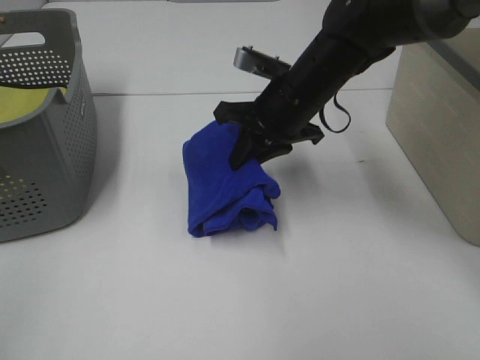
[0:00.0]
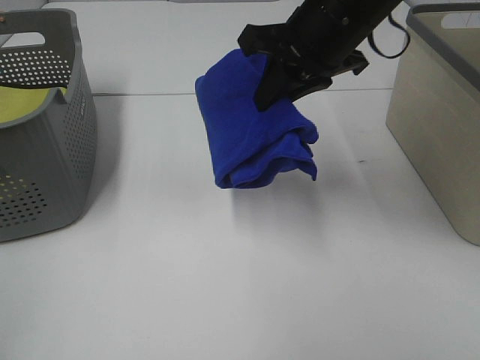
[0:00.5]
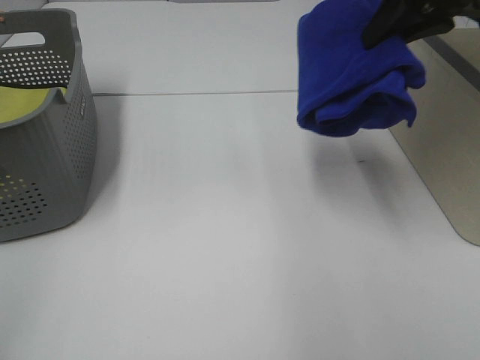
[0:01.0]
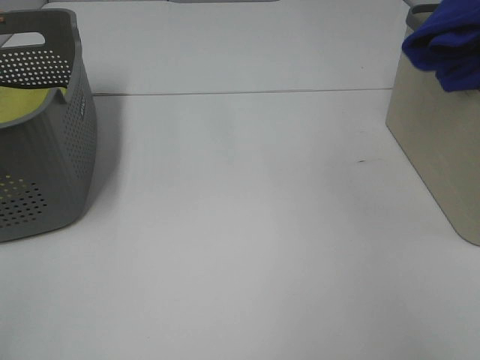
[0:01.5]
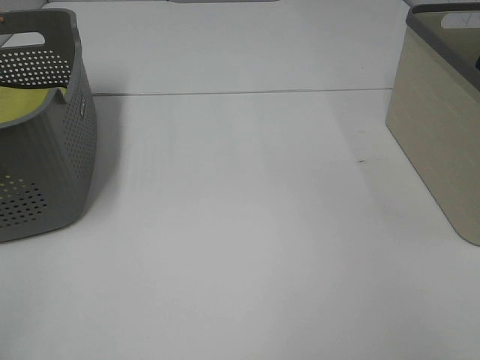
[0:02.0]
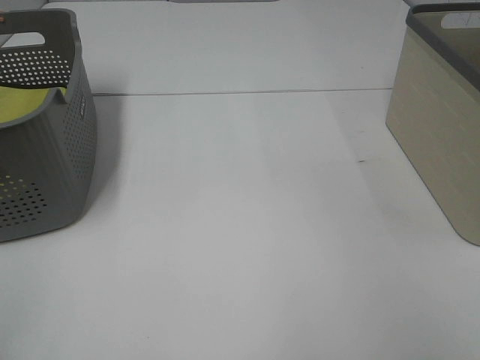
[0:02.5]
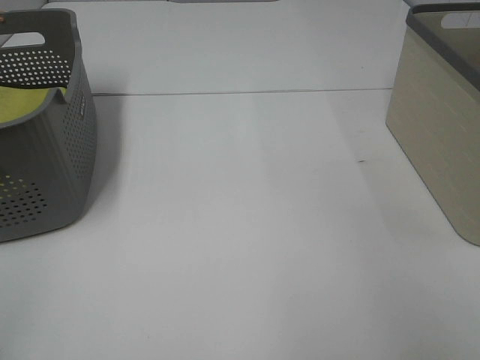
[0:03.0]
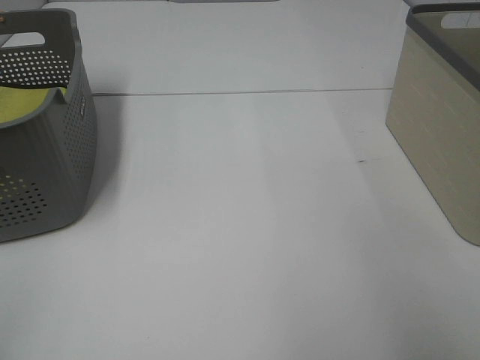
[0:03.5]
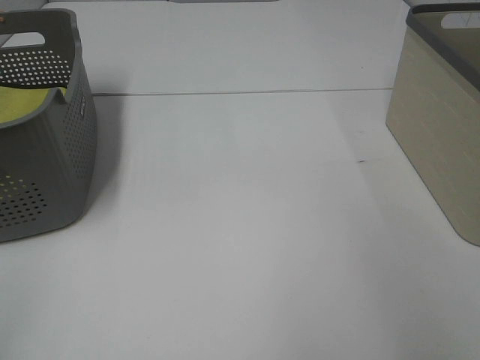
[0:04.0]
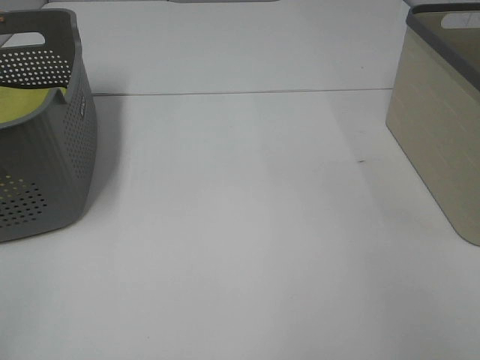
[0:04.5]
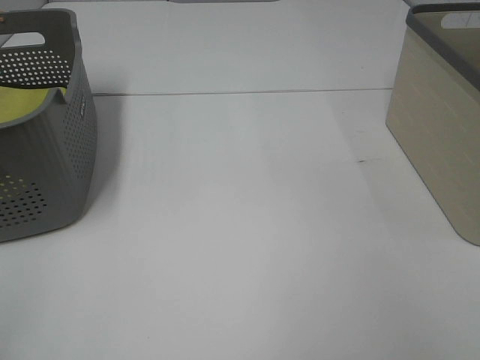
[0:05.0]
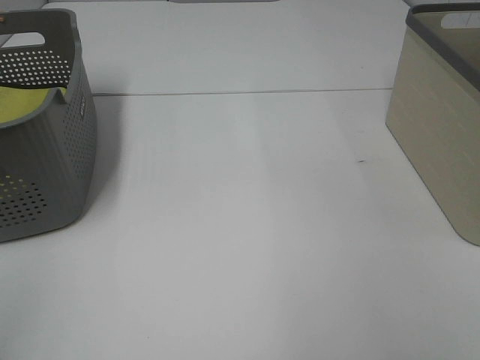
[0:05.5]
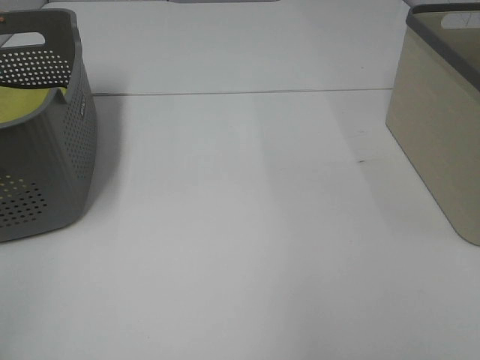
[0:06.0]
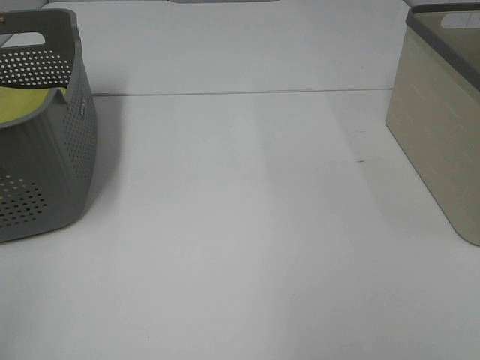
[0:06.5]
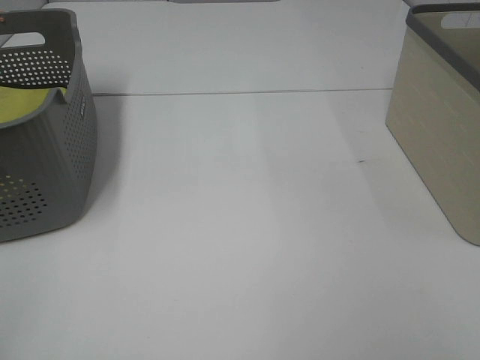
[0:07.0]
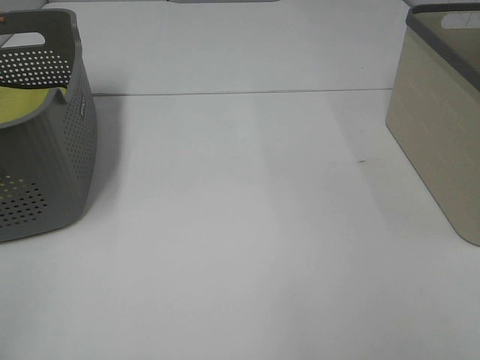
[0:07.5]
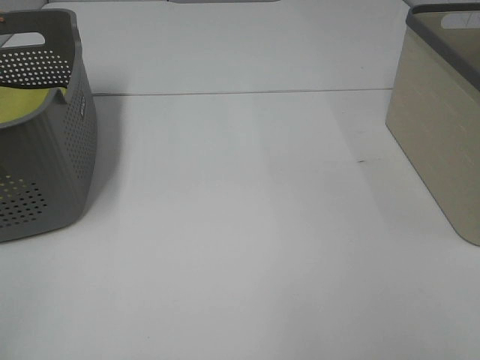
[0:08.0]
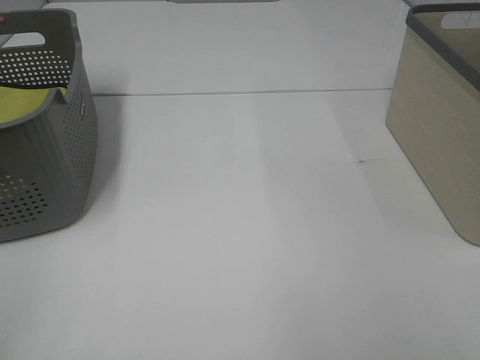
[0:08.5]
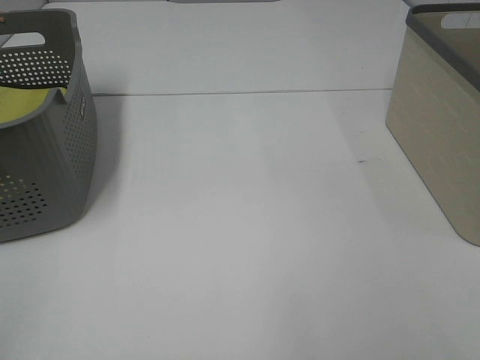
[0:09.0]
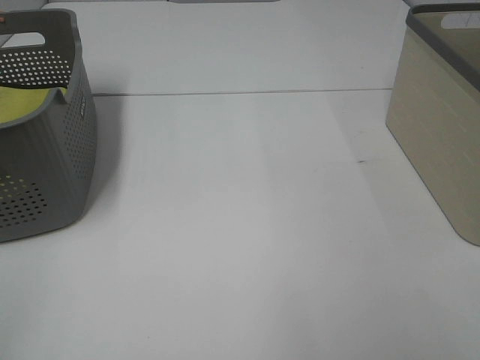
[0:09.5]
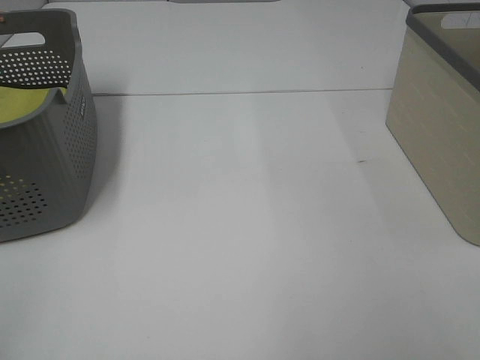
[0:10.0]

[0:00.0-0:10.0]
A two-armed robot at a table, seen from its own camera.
Step, 0:00.0 to 0:05.0: Right hand: place the blue towel in right basket.
0:00.0 to 0:02.0: The right gripper travels to the right and upward by some 40 cm.
0:04.0 to 0:06.0: The right gripper heads upward, to the left and backward, covering approximately 40 cm.

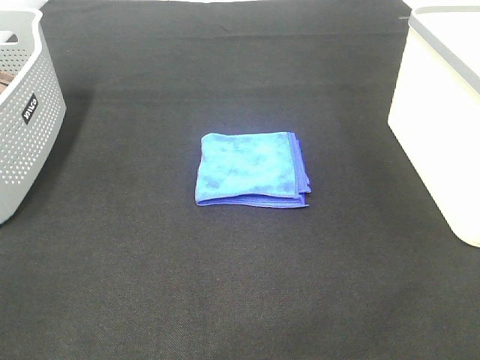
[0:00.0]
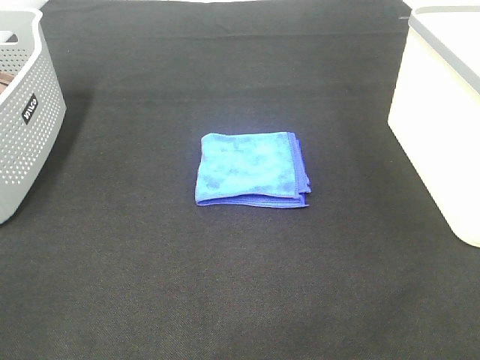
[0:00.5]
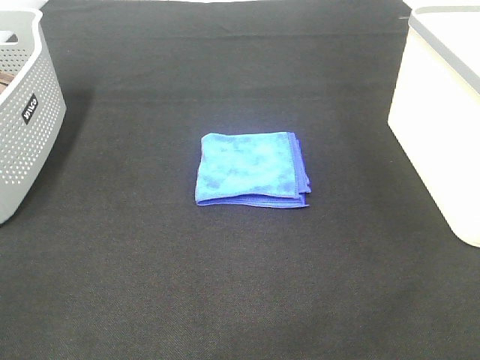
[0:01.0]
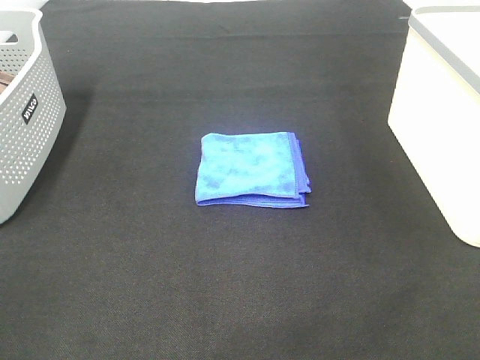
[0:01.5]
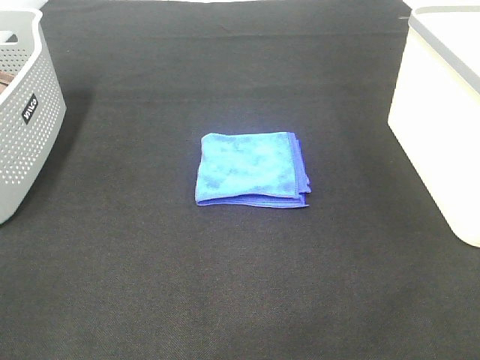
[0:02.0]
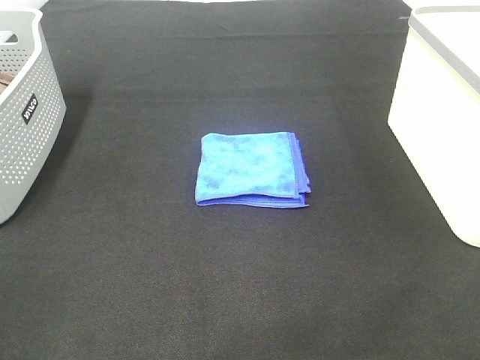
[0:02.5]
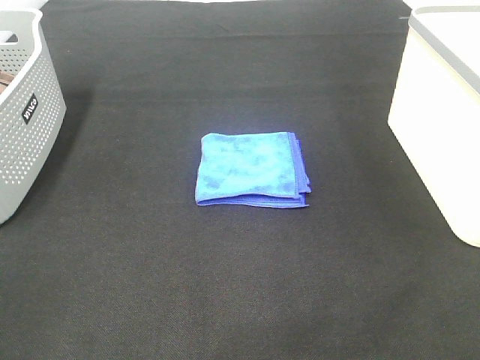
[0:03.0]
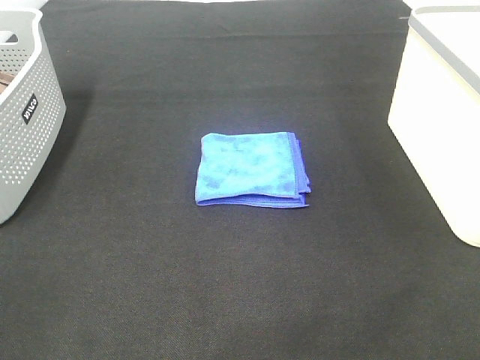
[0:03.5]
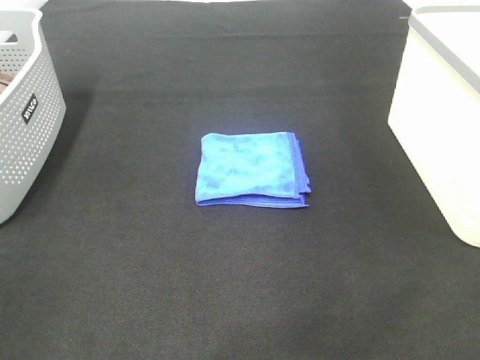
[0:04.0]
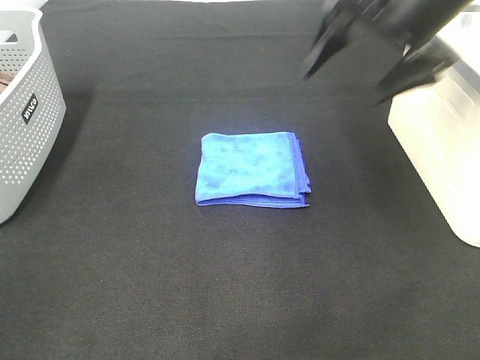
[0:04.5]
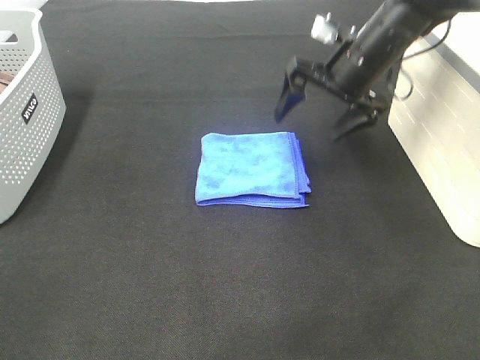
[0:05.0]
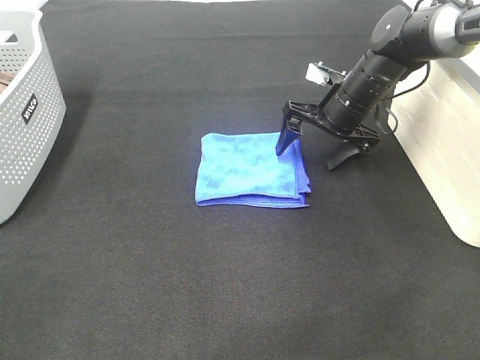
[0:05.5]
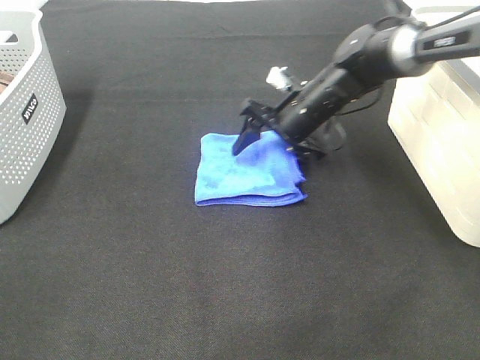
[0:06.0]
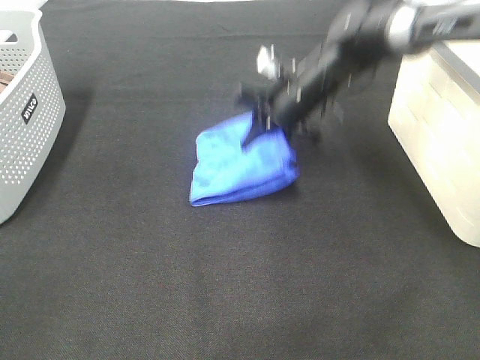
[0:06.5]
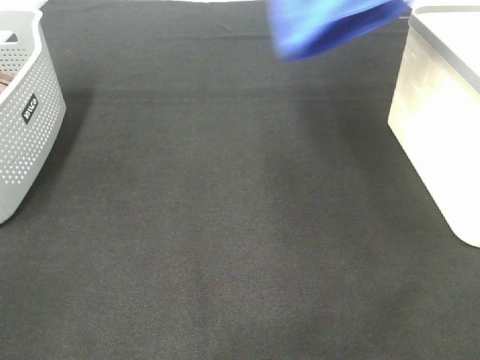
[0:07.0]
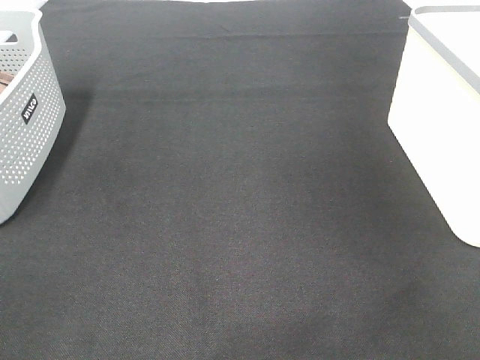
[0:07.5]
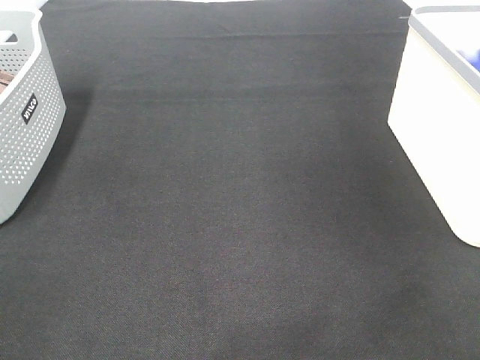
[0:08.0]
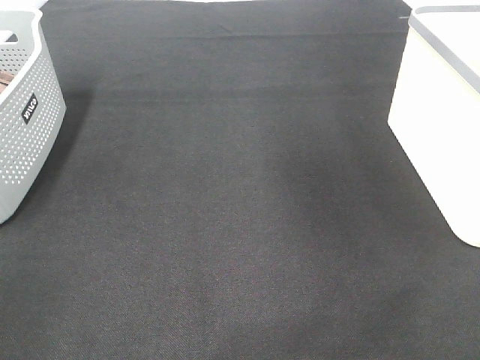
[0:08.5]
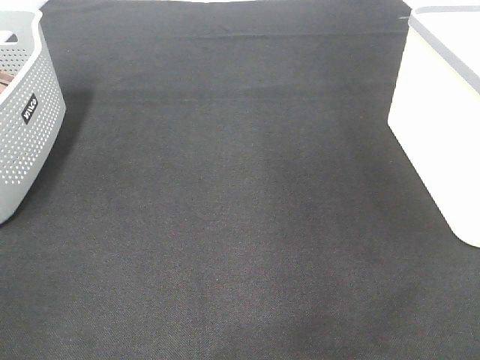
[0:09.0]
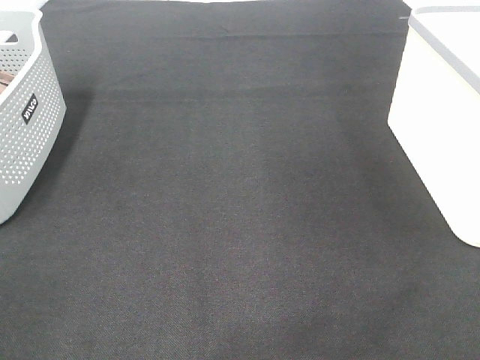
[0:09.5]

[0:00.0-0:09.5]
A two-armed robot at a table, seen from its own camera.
Step, 0:00.0 to 0:06.0: Right hand: grab the folded blue towel.
Step, 0:06.5 to 0:07.5: Right hand: place the blue towel in right basket.
0:00.0 to 0:02.0: Both grippers stay put.
0:04.0 to 0:05.5: The right gripper moves downward and forward, roughly 40 cm.
0:05.5 to 0:07.5: The right gripper travels upward and to the right by approximately 40 cm, and closes.

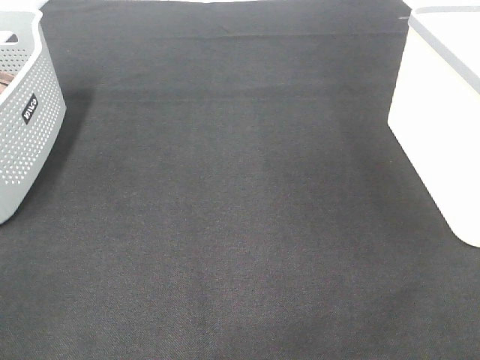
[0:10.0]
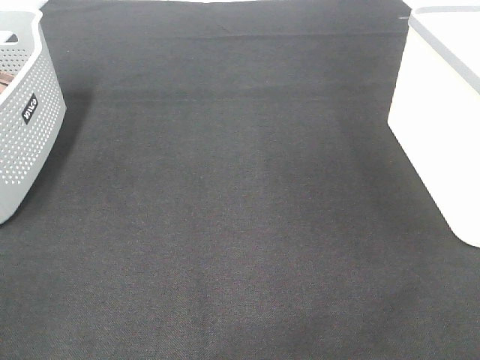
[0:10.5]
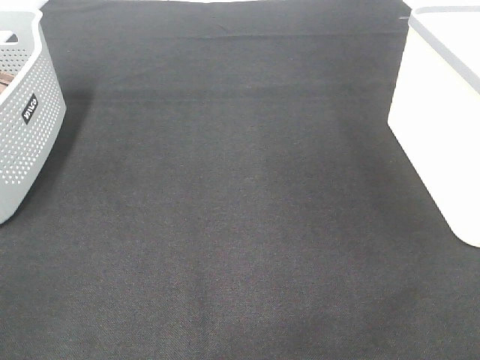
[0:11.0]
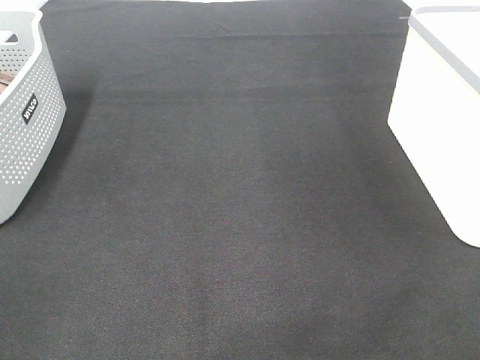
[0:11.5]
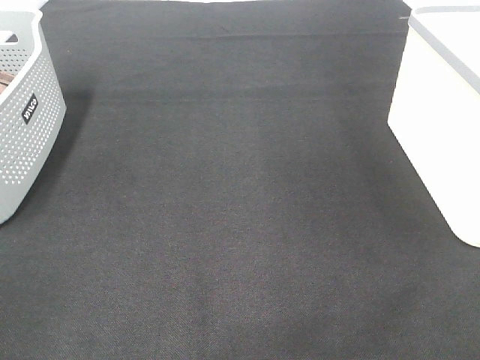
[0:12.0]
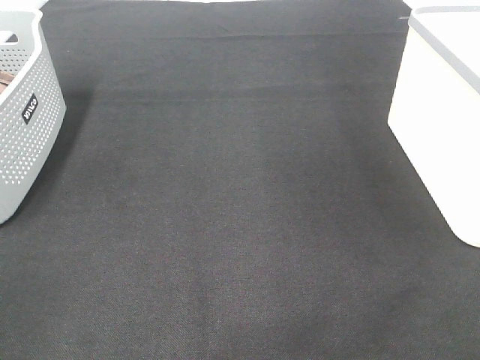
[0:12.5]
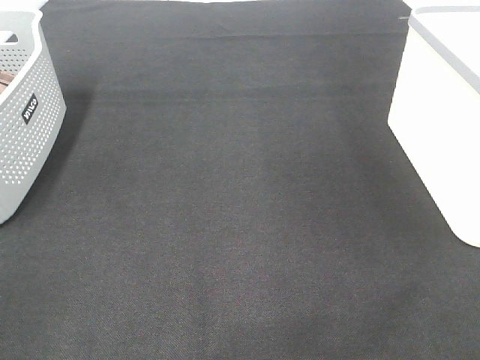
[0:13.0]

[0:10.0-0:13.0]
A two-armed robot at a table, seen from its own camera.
0:11.5 to 0:13.0: Neither gripper changes place.

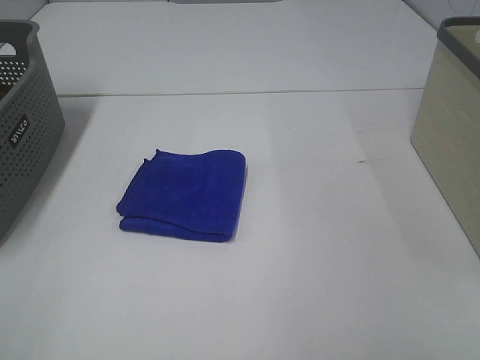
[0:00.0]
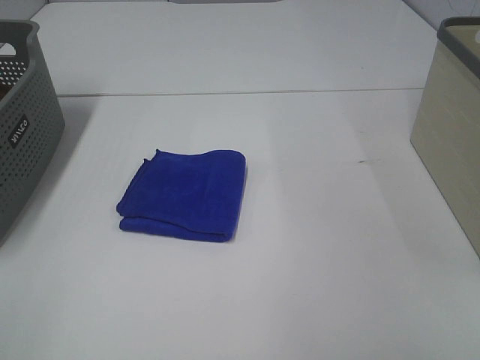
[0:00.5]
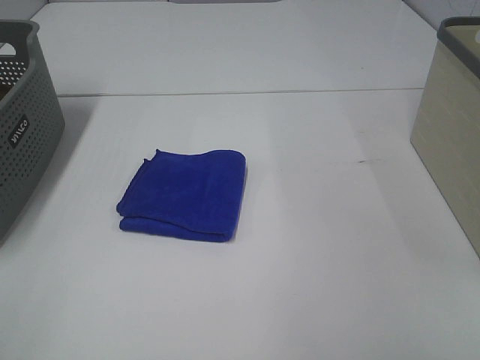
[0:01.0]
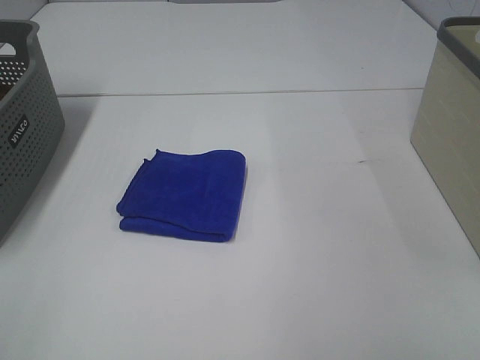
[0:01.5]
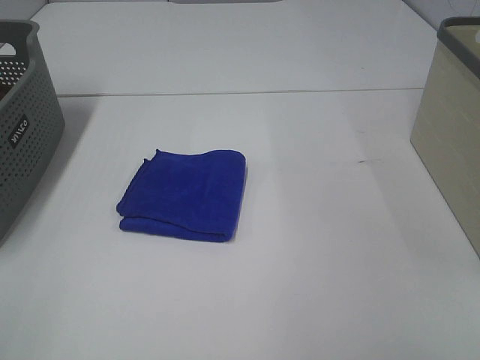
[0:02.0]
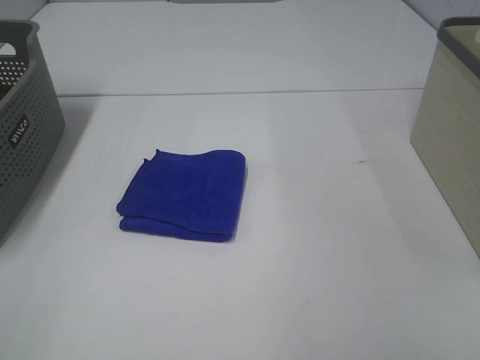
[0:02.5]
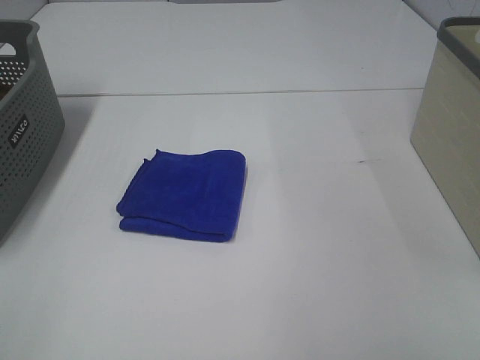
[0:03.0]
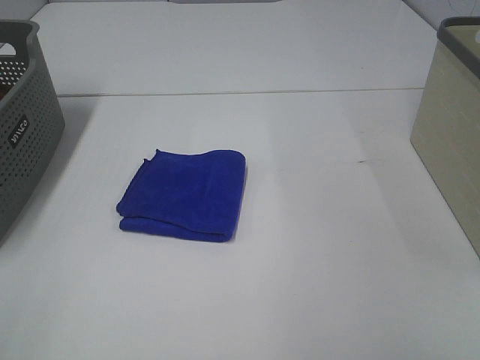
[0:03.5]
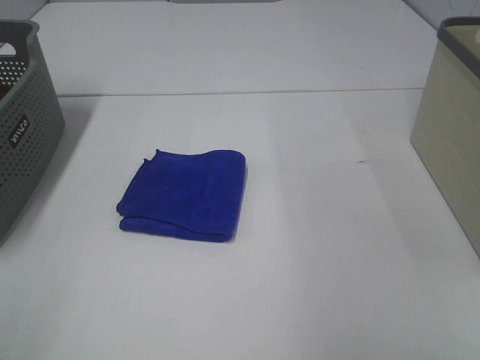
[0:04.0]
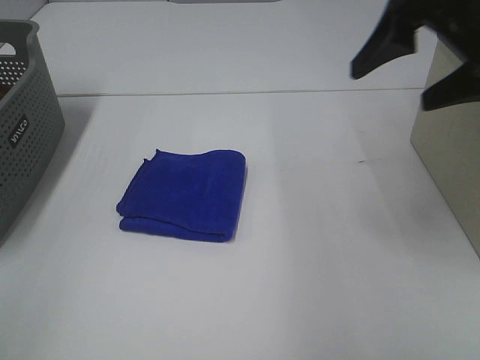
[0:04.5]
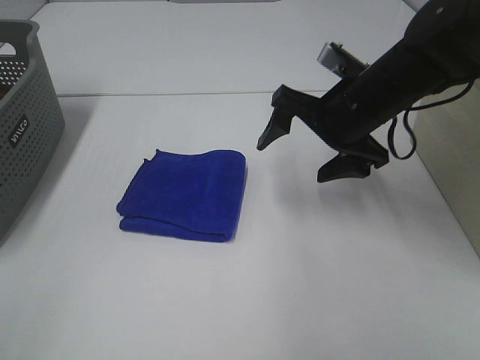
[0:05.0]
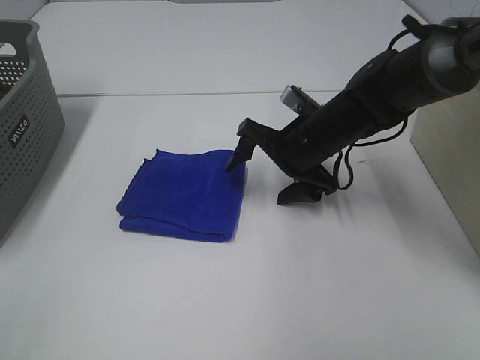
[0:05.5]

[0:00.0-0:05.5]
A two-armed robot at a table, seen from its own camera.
0:00.0 to 0:03.5: Both grippers stay about where they are.
0:03.5 to 0:05.5: The right gripper travels forward, to the left and downward by approximately 50 cm.
